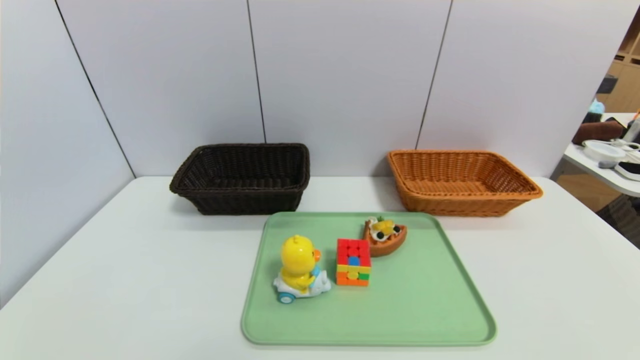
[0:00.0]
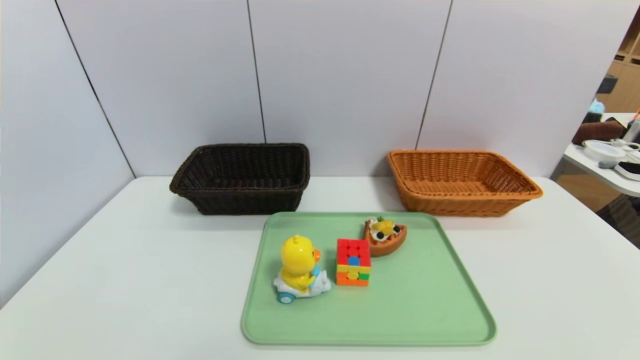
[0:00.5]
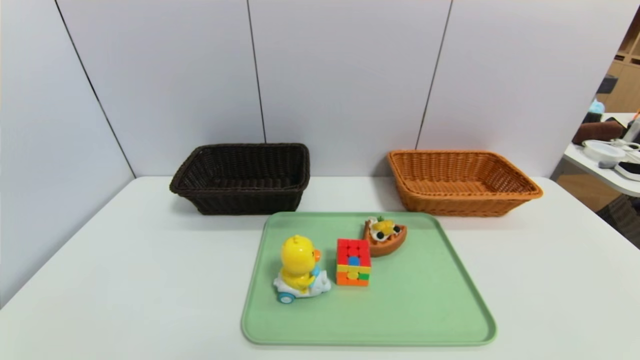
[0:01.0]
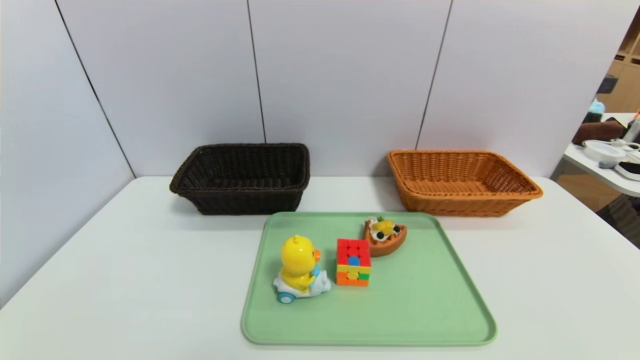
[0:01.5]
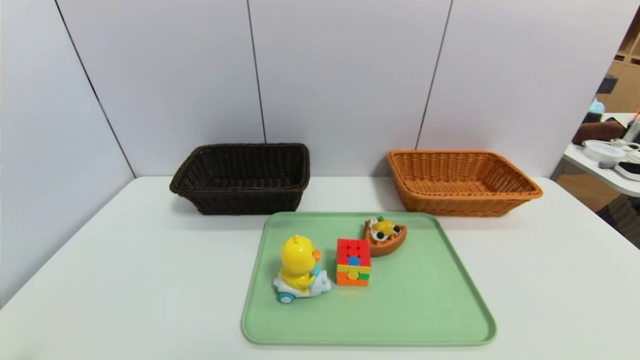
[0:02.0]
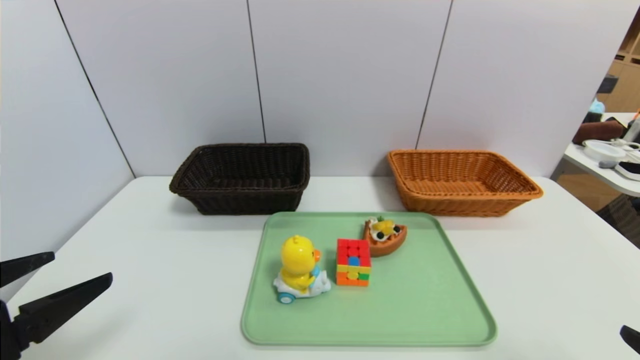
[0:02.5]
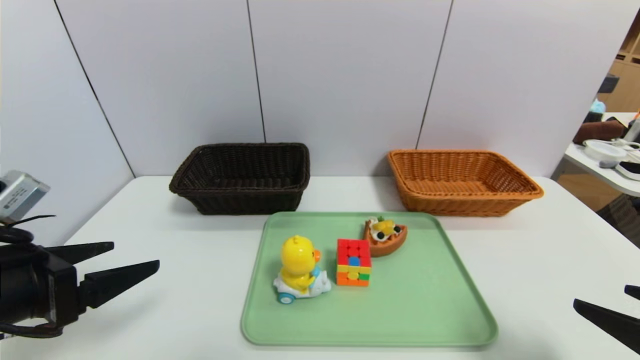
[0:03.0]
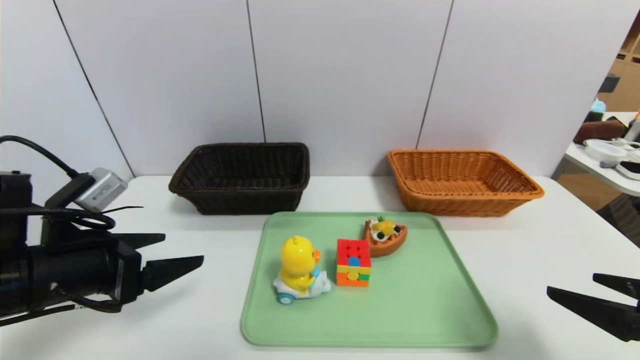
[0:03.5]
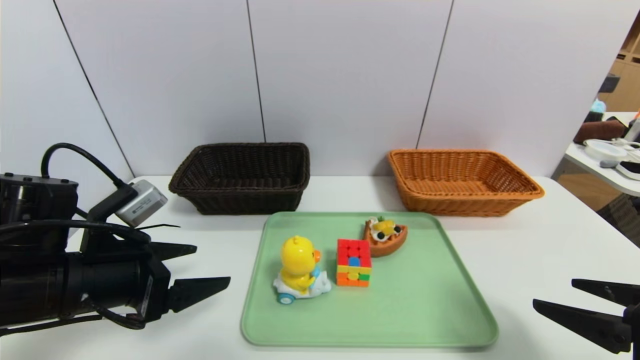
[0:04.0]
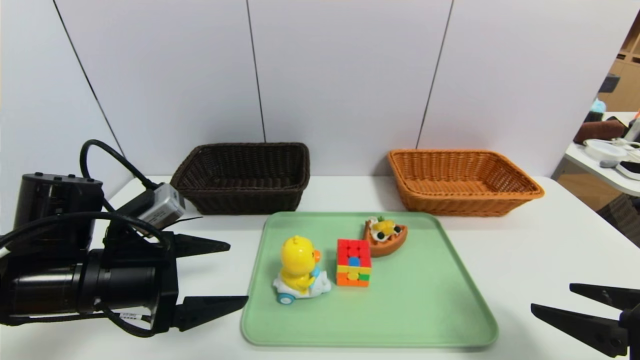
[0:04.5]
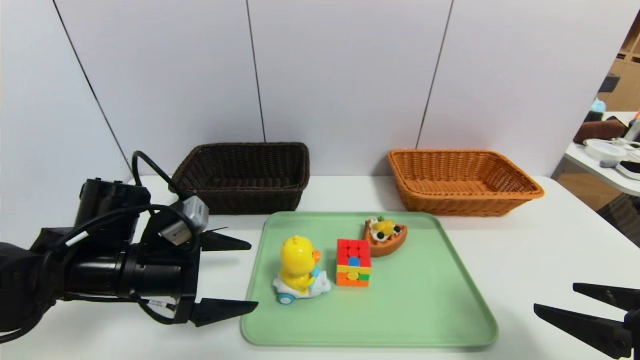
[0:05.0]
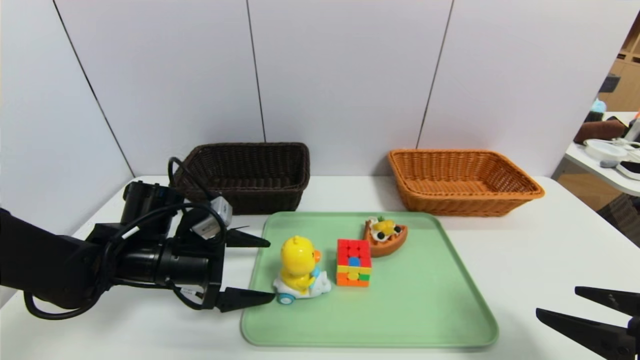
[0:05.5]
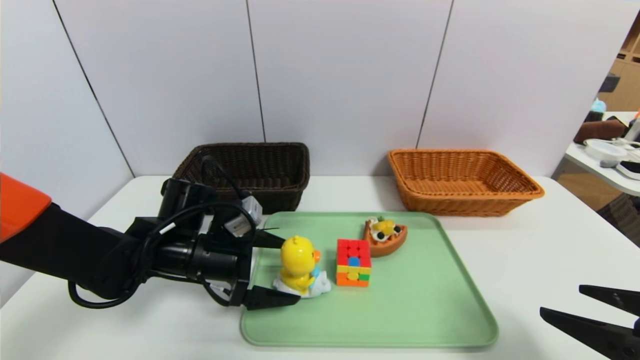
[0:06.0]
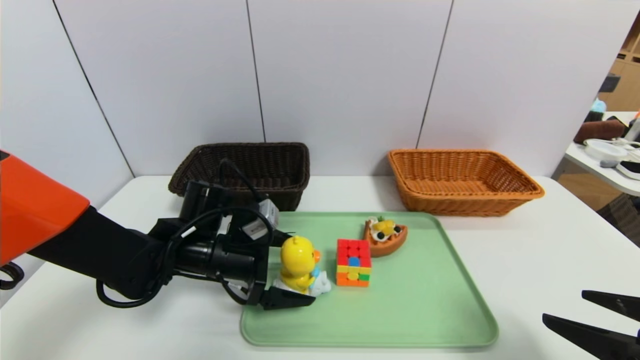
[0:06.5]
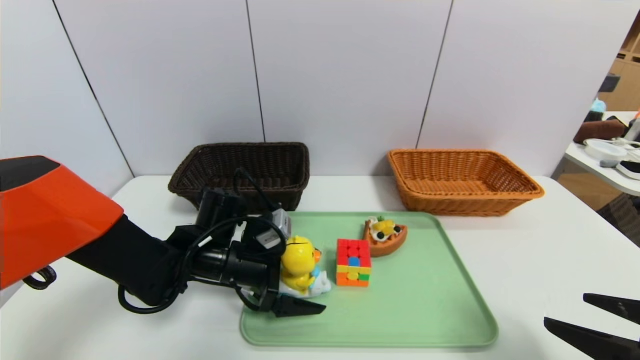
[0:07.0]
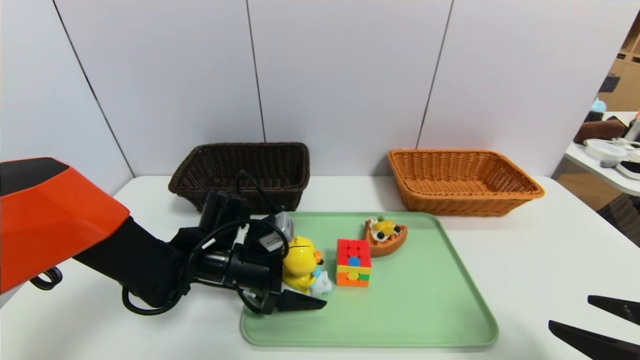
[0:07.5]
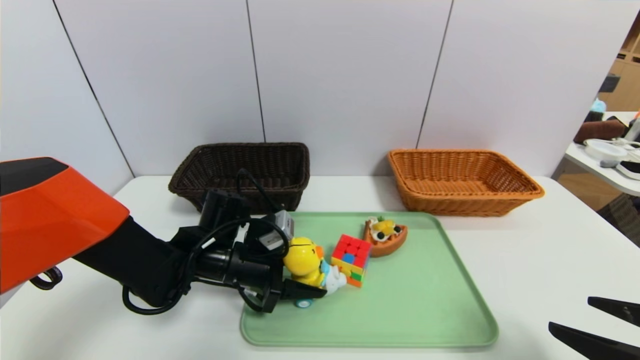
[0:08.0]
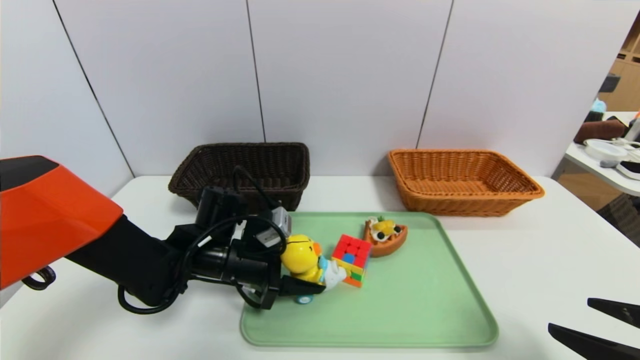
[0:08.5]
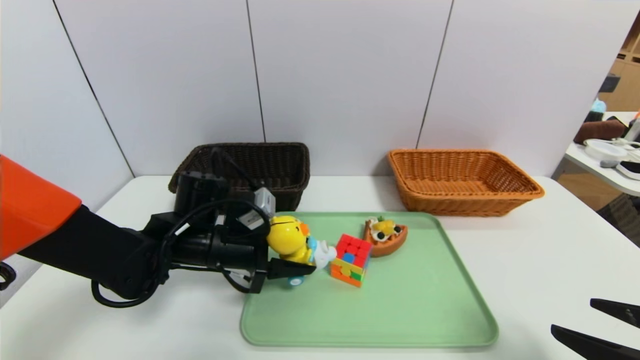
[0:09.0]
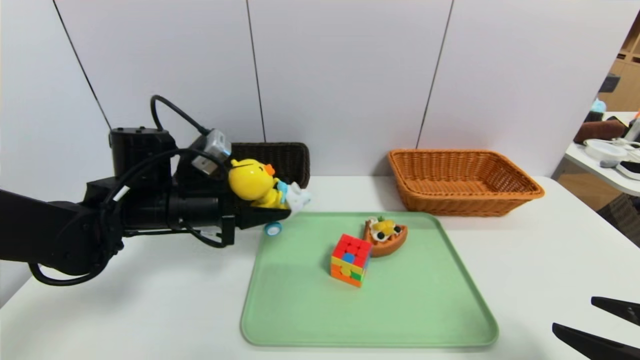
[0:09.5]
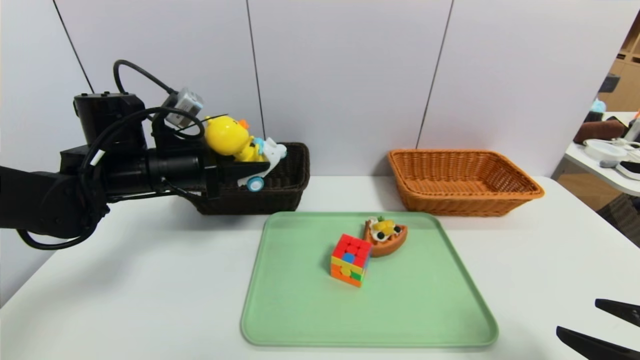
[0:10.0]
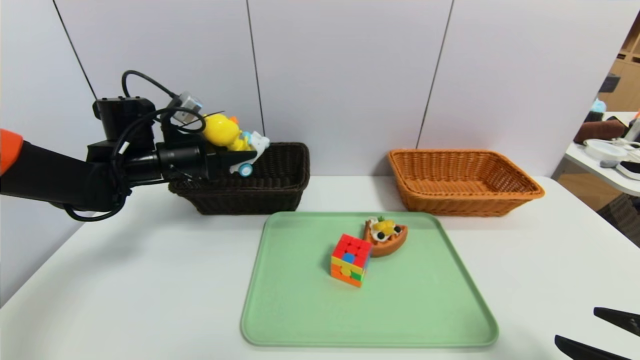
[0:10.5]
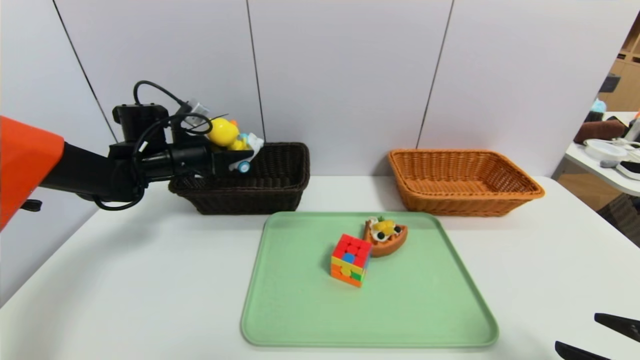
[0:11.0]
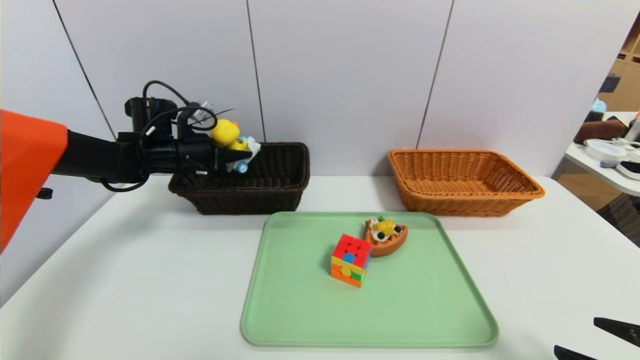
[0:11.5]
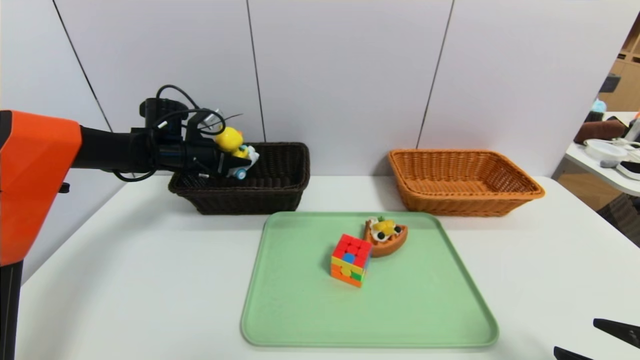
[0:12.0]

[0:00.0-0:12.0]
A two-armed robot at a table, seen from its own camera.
Task of the whole recording: place the food in the right basket with the right gripper, and place the non food items in the left basket with the left gripper.
0:02.0 to 0:04.0: The two grippers go approximately 15 cm forward.
0:04.0 to 0:06.0: The left gripper heads forward, downward and to the right, covering some 15 cm.
0:06.0 to 0:08.0: The left gripper changes place by approximately 5 cm, and closes.
0:08.0 to 0:10.0: The left gripper moves upward and to the left, some 15 cm.
0:10.0 to 0:12.0: The left gripper travels forward by roughly 15 cm.

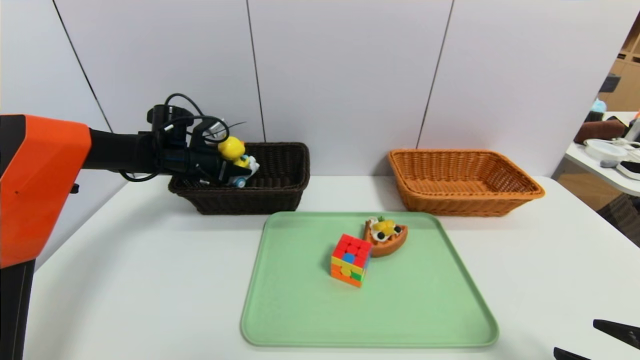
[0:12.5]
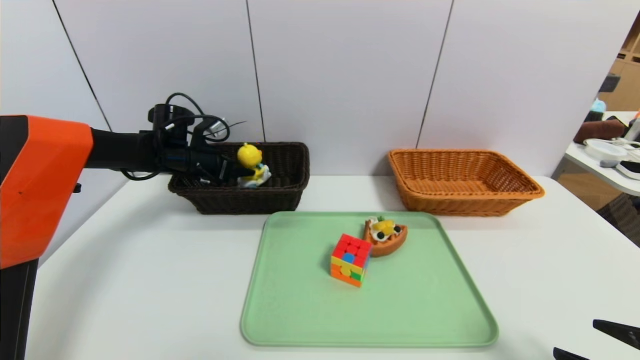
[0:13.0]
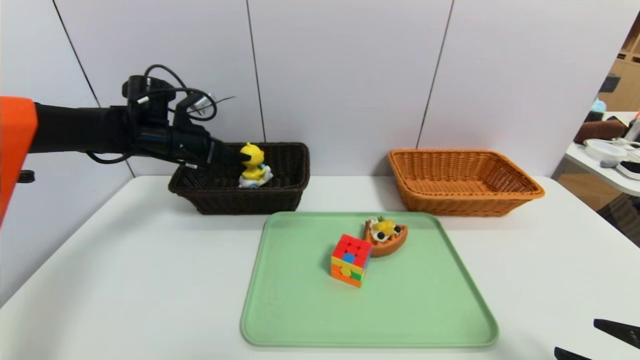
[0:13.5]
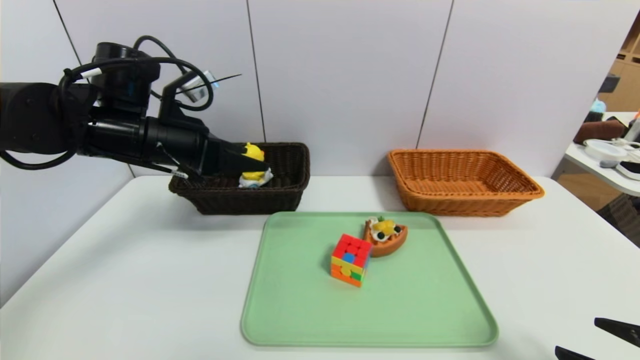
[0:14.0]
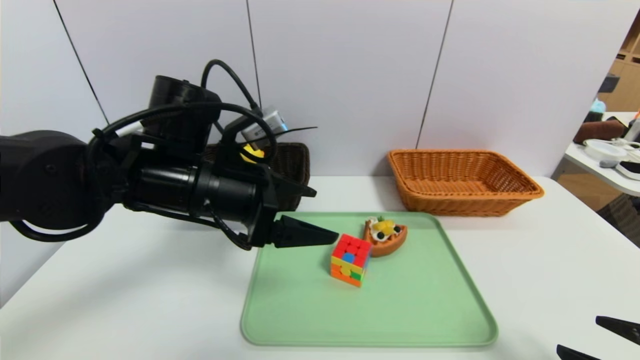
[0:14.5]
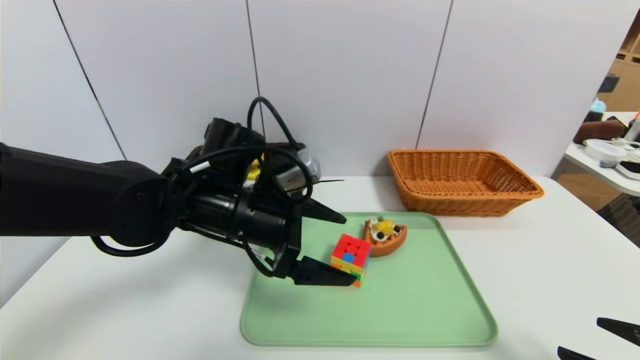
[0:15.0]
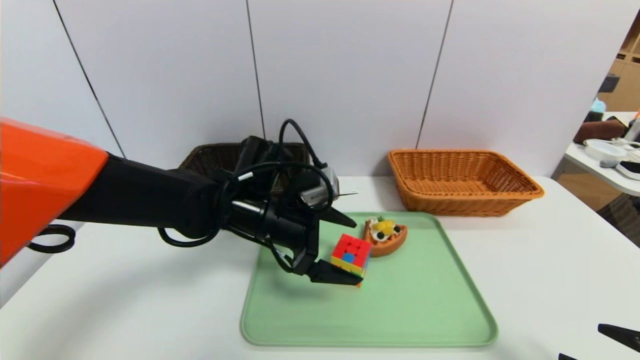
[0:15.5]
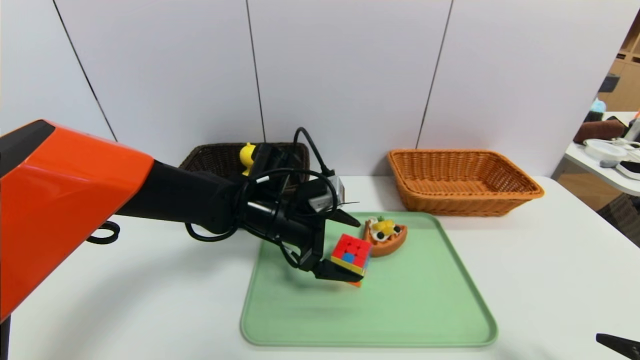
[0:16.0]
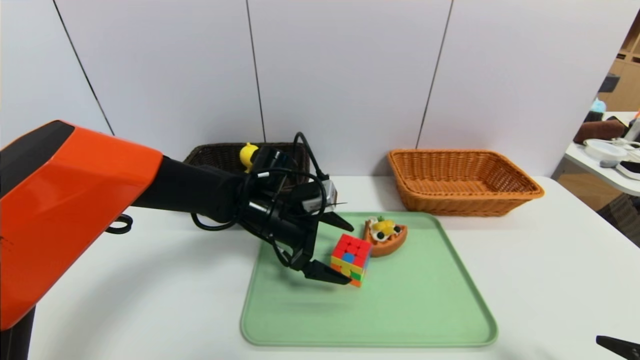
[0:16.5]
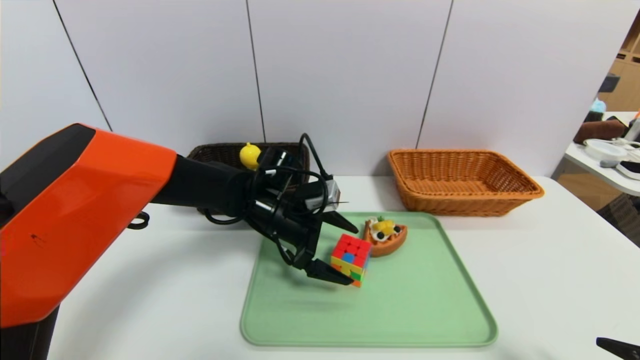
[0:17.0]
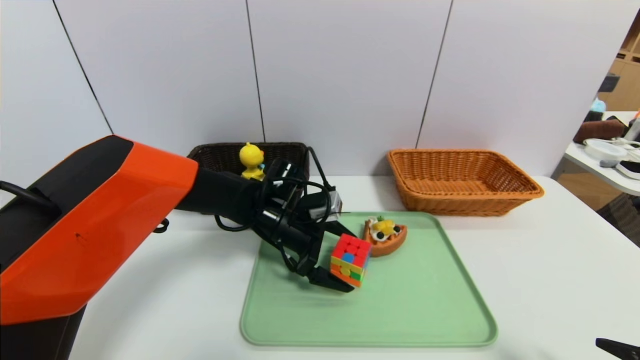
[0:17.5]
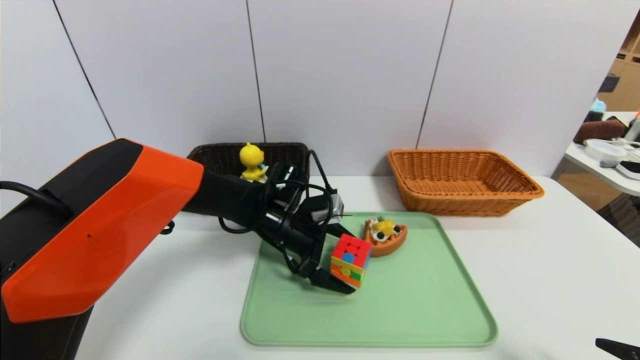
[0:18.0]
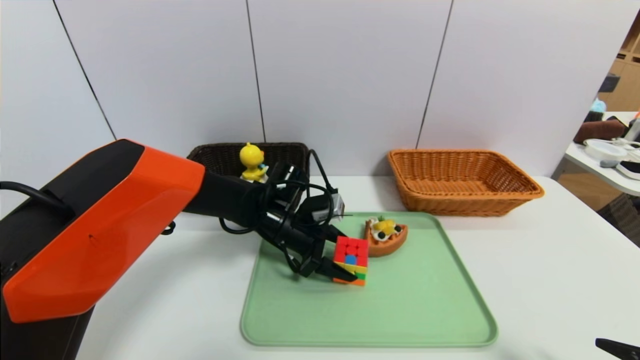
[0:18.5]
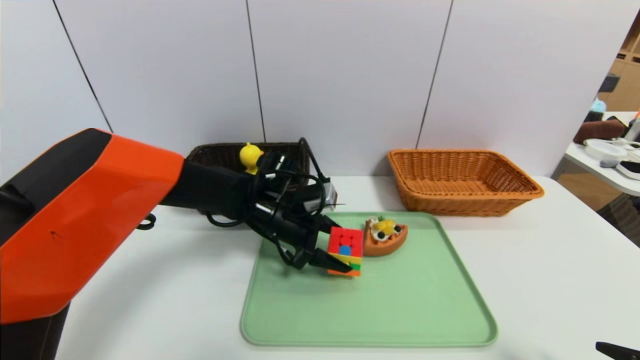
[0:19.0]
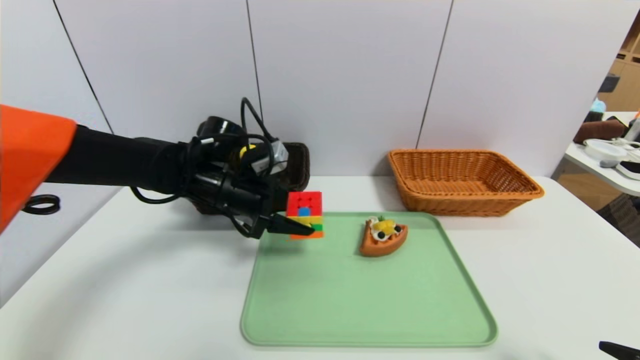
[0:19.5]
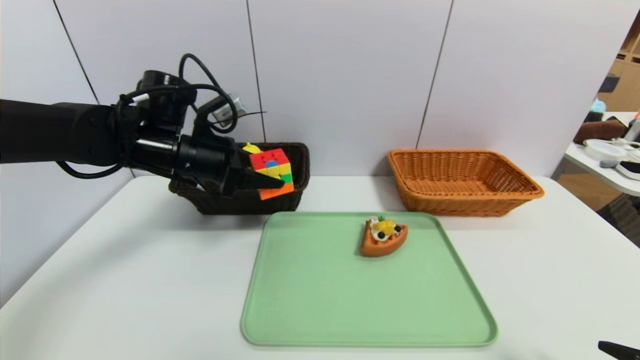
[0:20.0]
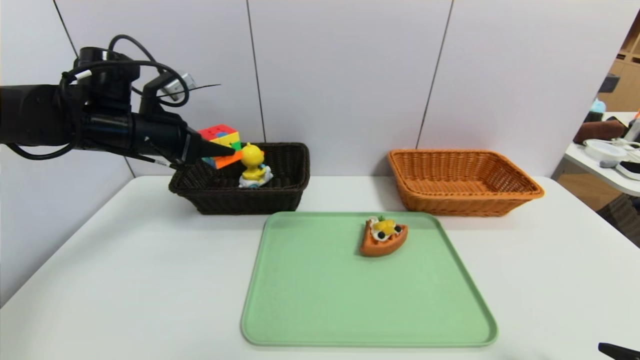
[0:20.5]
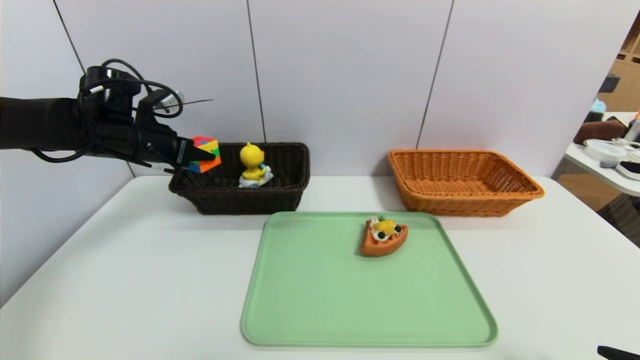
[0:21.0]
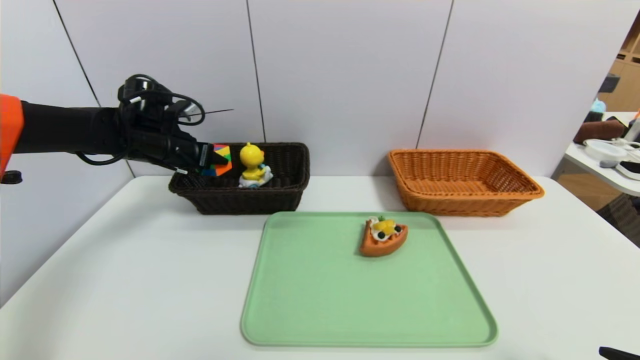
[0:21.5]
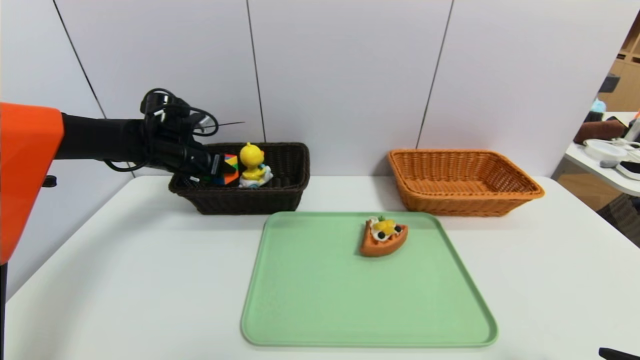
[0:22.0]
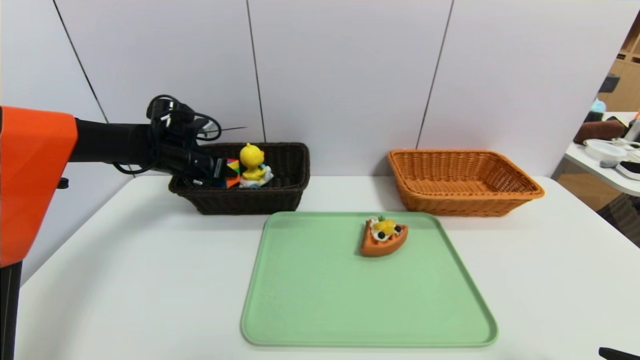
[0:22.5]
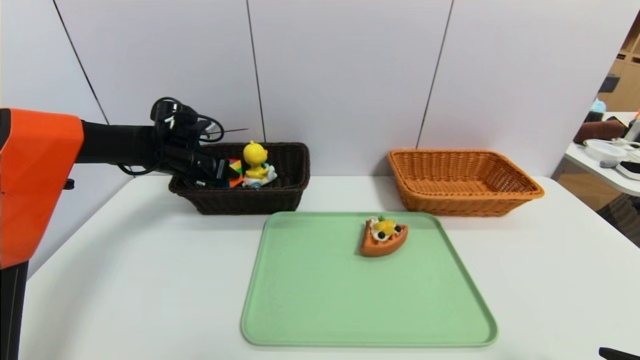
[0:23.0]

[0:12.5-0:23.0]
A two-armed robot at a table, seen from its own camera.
Task of the whole recording: place the food in the right basket with the right gripper, and place the non food items in the left basket with the left gripper.
0:12.5 to 0:14.5: The left gripper goes about 25 cm backward and to the right, and opens its fingers.
0:14.5 to 0:16.5: The left gripper heads downward, forward and to the right, covering roughly 15 cm.
0:16.5 to 0:19.0: The left gripper closes.
0:19.0 to 0:21.0: The left gripper goes approximately 25 cm to the left and upward.
0:21.0 to 0:23.0: The left gripper travels downward and forward by about 10 cm.
